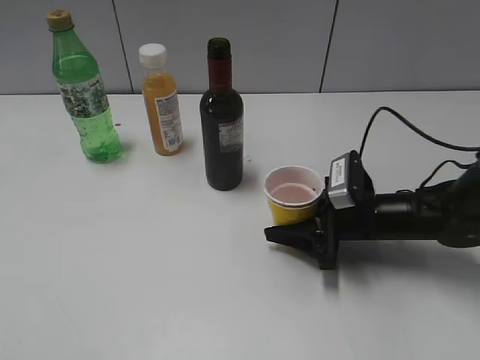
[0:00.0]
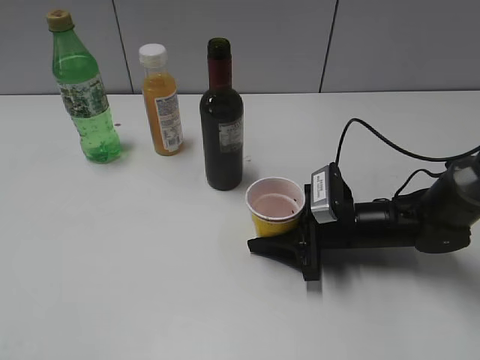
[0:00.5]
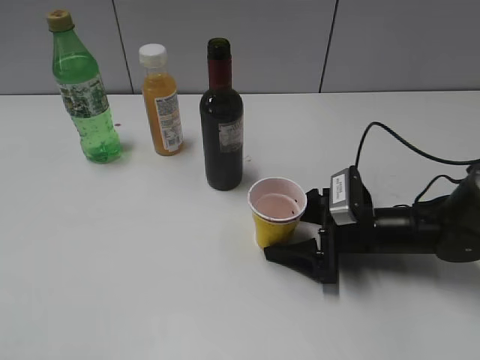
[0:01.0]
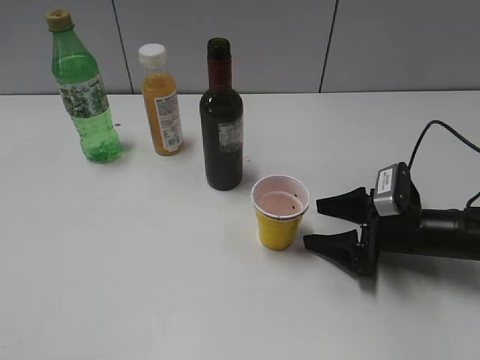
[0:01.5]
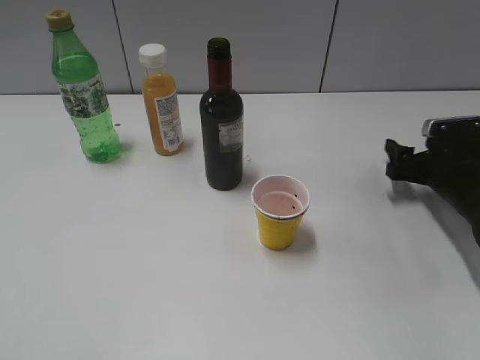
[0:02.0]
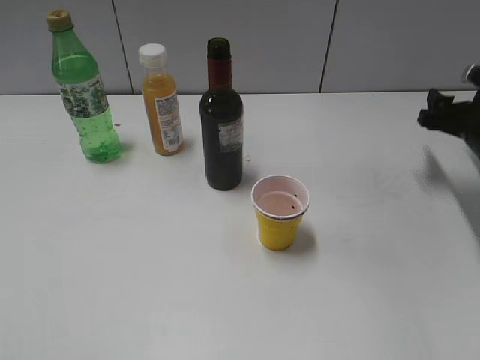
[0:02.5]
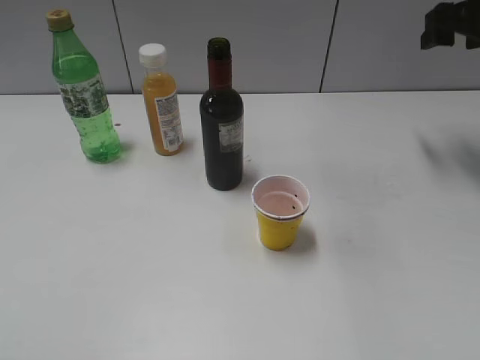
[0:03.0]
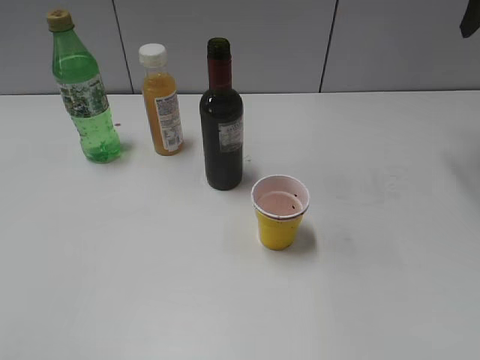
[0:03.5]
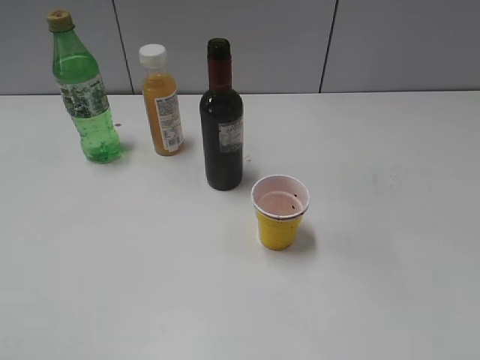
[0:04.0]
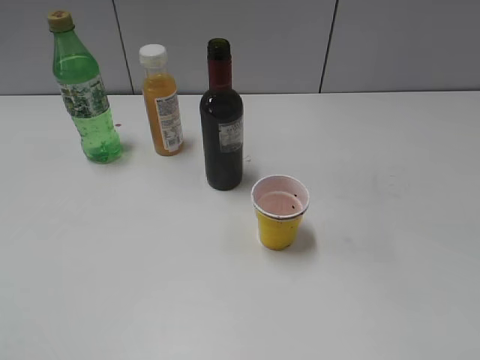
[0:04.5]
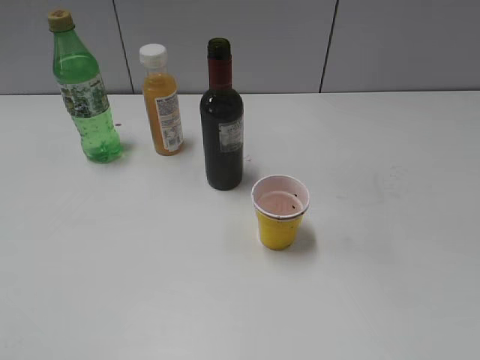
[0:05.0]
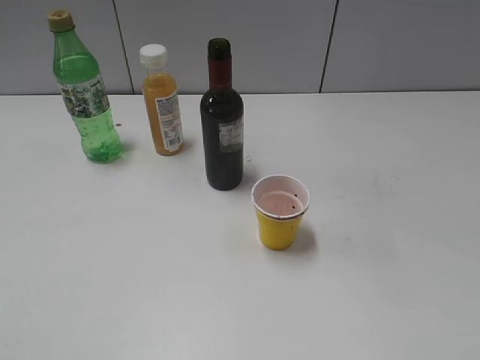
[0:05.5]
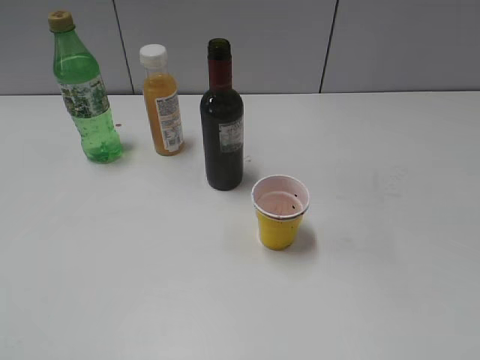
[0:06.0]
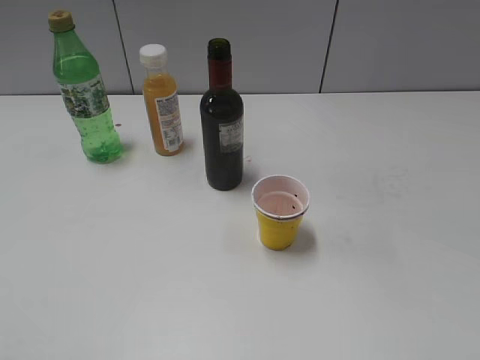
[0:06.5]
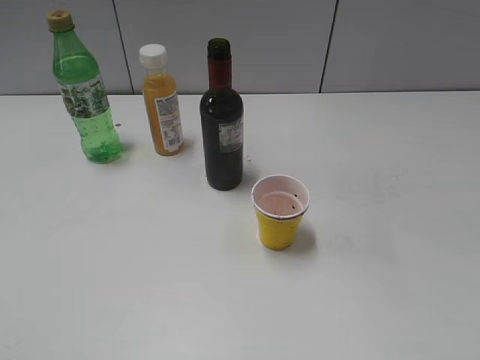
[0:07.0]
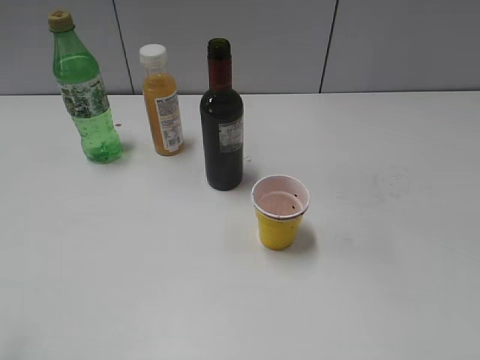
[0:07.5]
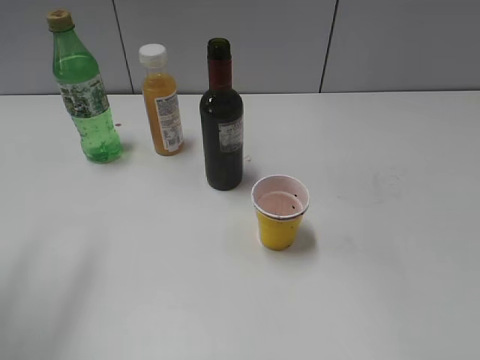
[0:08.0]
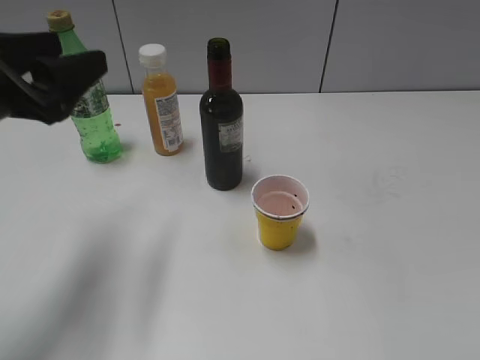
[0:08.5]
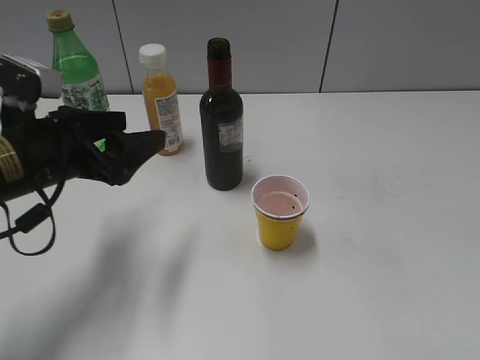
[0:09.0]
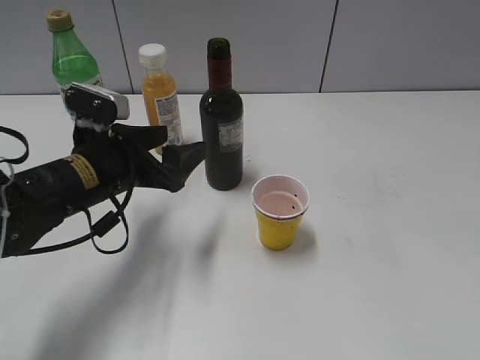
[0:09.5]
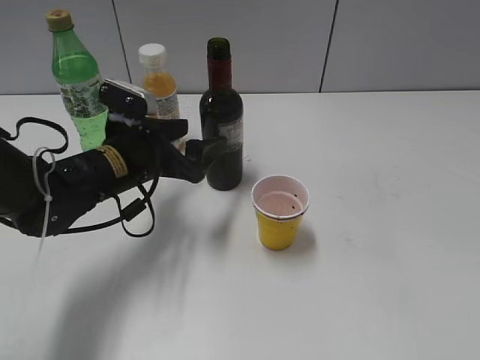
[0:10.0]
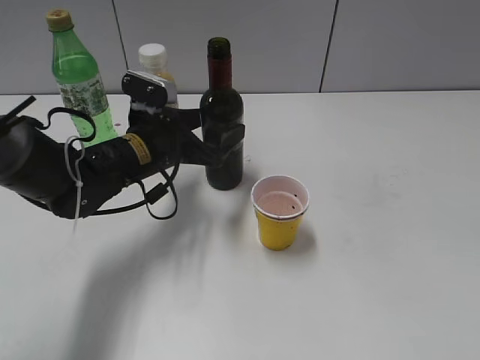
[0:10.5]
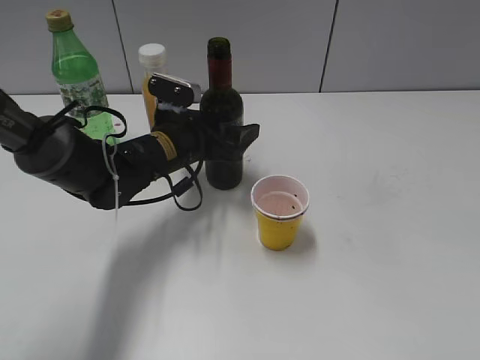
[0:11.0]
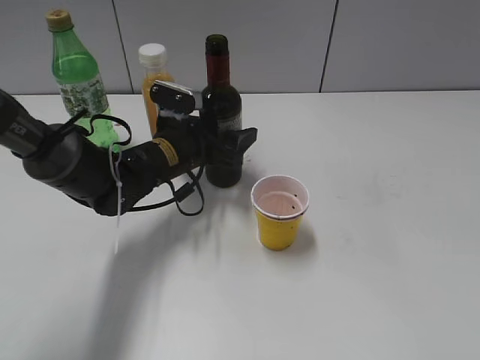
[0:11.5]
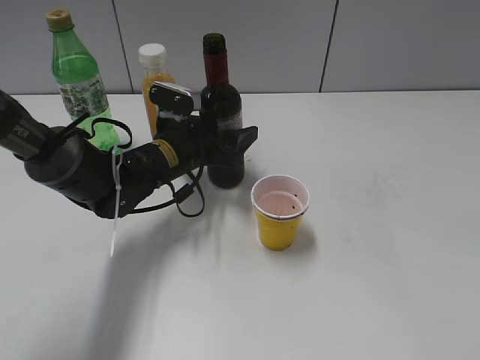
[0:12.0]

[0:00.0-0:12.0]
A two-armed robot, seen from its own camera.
Step, 0:00.0 to 0:01.5: Place the yellow paper cup on the table with right gripper.
0:00.0 to 0:02.0: The right gripper goes about 15 cm to the right, and opens.
0:02.0 to 0:04.0: The right gripper moves upward and backward, about 30 cm.
0:06.0 to 0:08.0: The left gripper heads forward, covering about 20 cm.
0:08.0 to 0:10.0: The left gripper shifts approximately 30 cm downward, to the right and forward, and opens up.
0:10.0 to 0:12.0: The left gripper moves forward, roughly 5 cm, and closes its fingers.

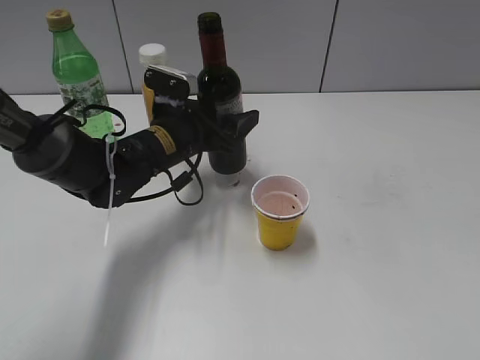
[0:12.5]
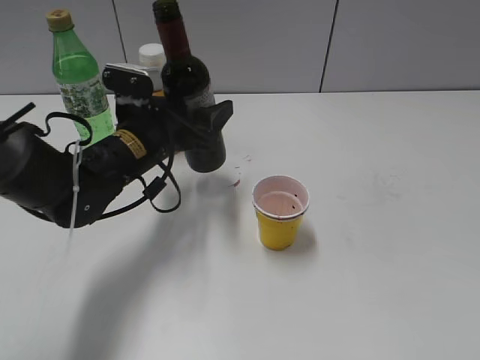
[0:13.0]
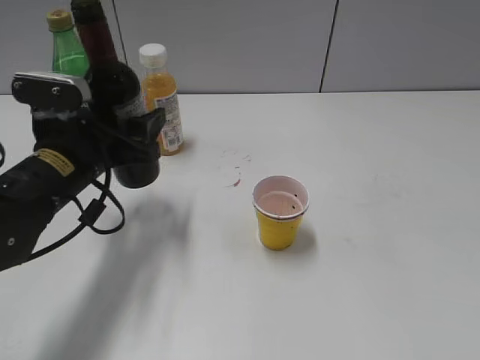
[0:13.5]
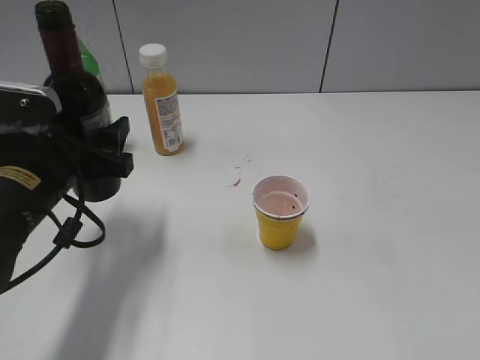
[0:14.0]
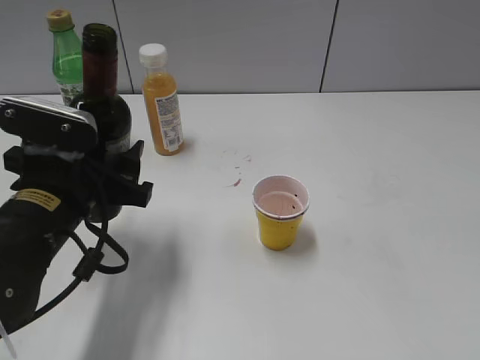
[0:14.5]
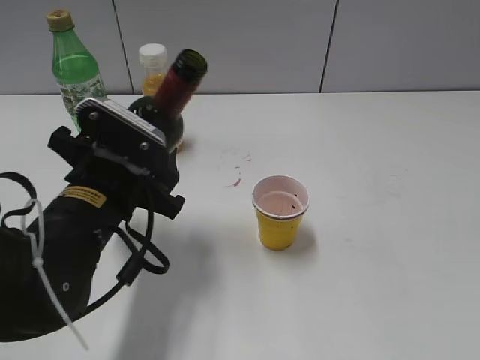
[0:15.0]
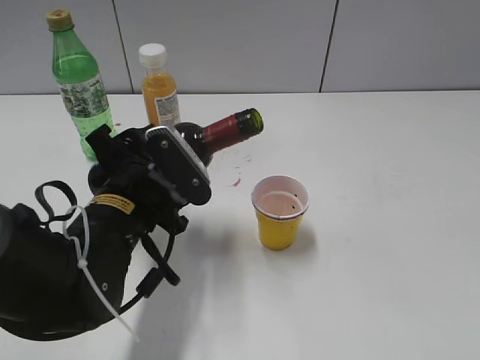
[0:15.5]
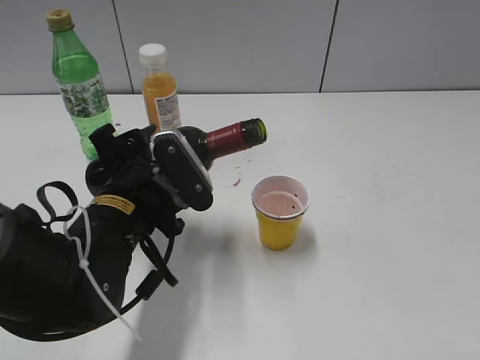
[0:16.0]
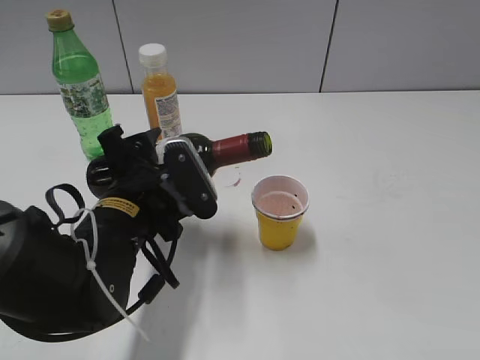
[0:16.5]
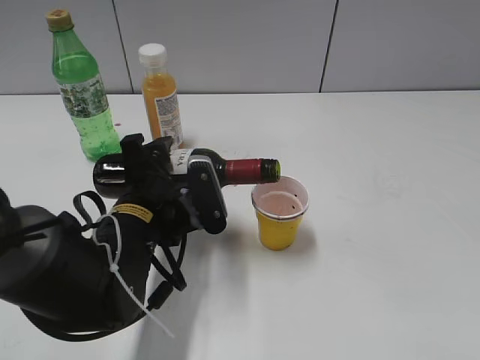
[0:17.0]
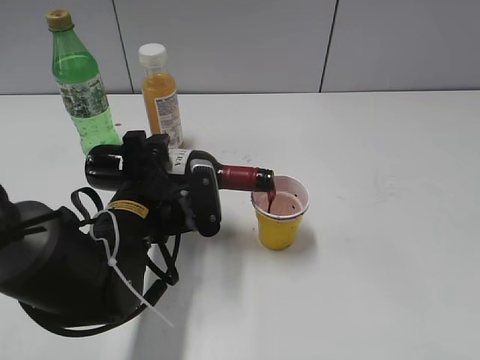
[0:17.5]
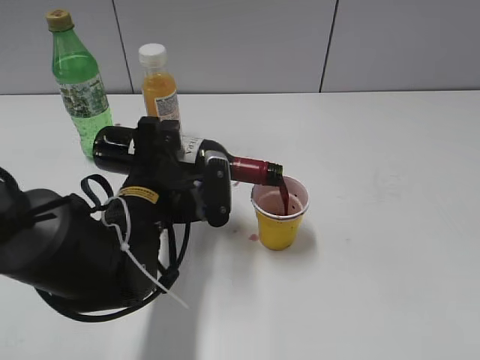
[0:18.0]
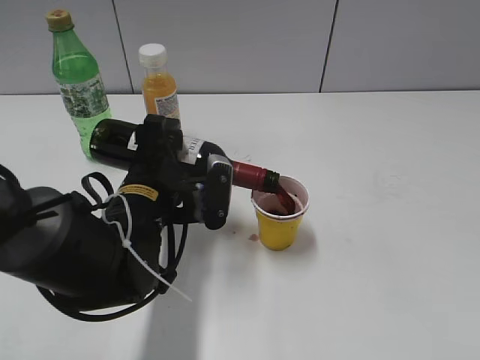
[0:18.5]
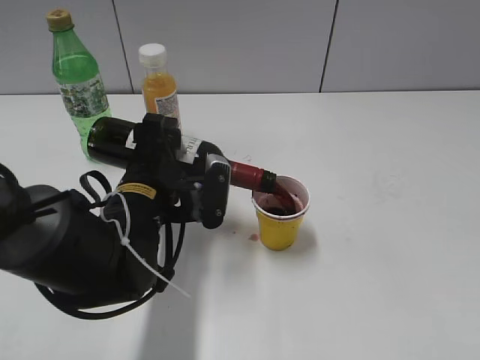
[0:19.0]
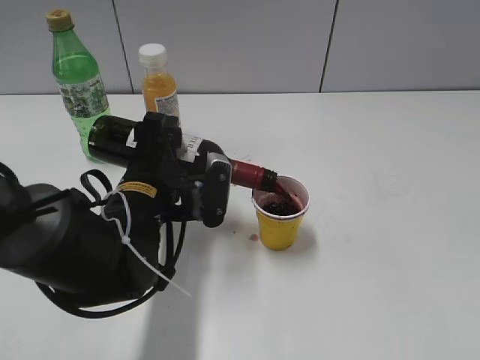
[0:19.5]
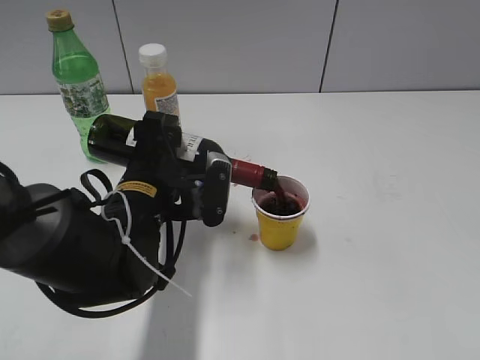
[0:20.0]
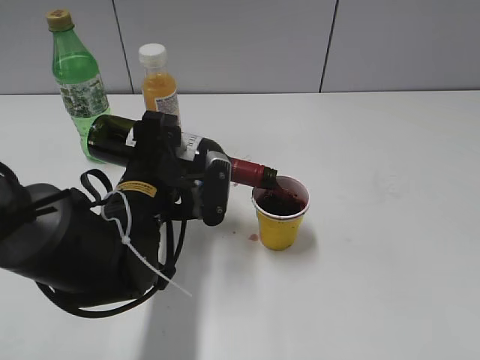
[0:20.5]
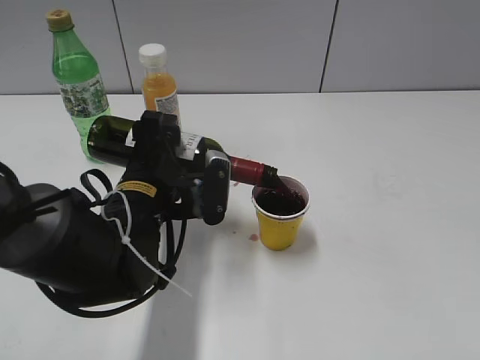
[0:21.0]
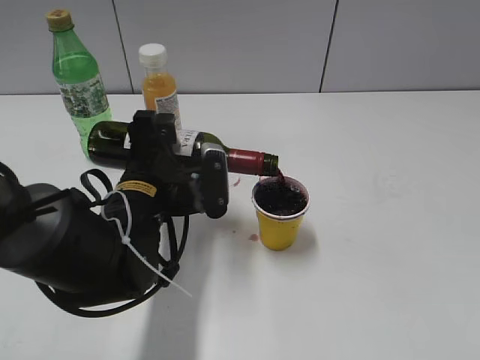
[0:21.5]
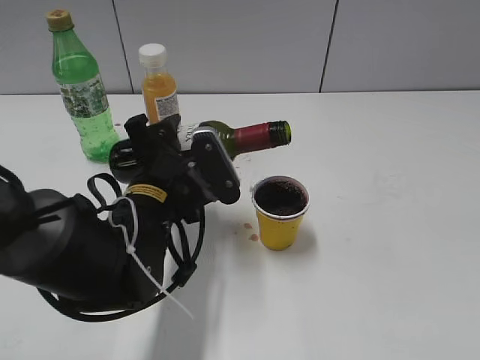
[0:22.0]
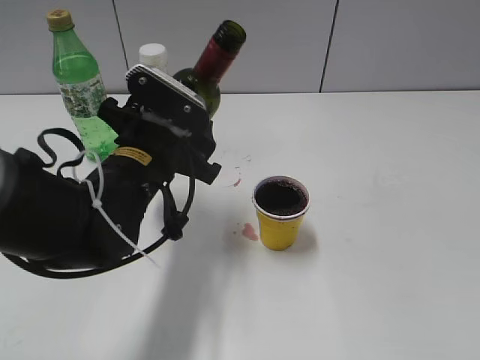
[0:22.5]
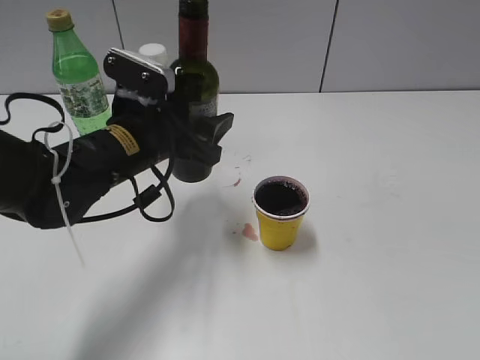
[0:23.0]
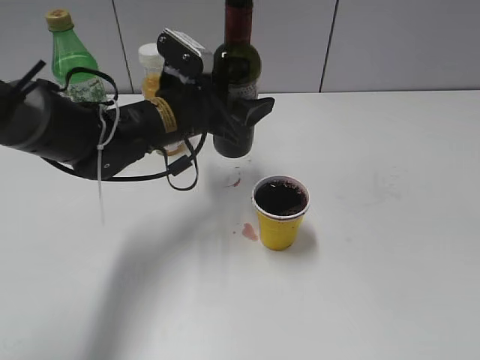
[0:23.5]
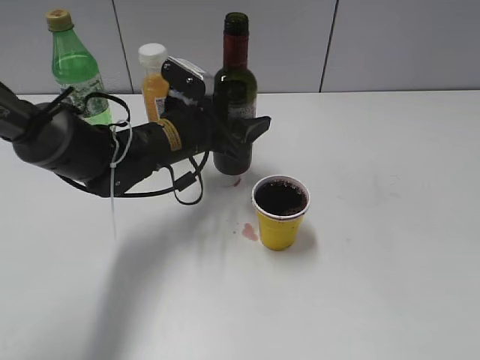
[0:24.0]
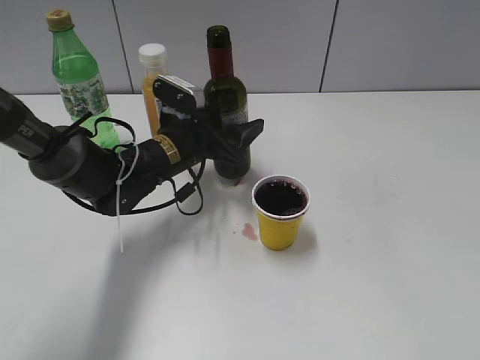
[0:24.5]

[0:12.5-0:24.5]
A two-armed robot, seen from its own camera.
Step, 0:12.5 to 0:22.0: Pour the red wine from bottle to cup with left gripper.
0:12.5 to 0:14.5: The left gripper shifts roughly 20 cm backward and to the left.
0:14.5 to 0:16.5: The left gripper travels to the right by roughly 5 cm.
0:18.5 to 0:20.5: Both grippers stay about where they are.
0:22.5 to 0:24.5: The left gripper is displaced forward and downward by approximately 10 cm.

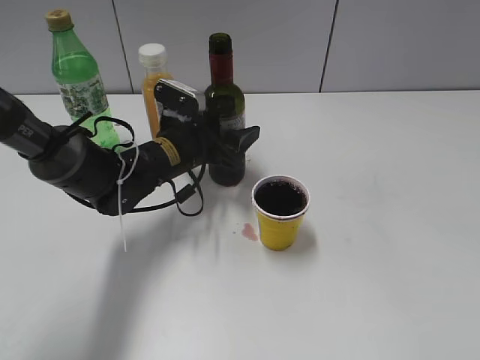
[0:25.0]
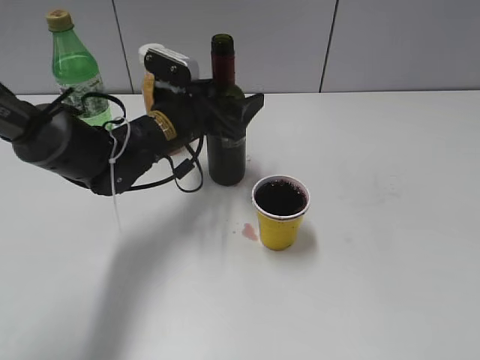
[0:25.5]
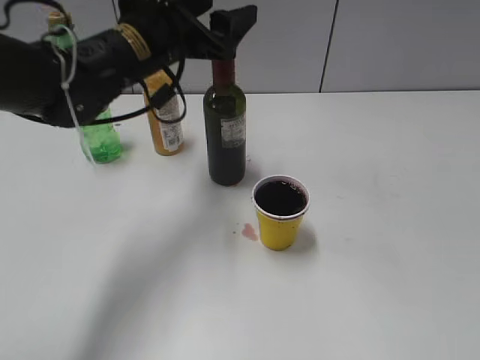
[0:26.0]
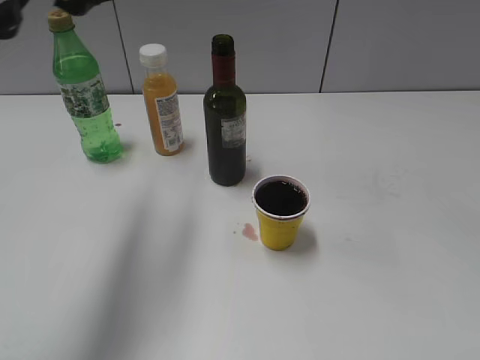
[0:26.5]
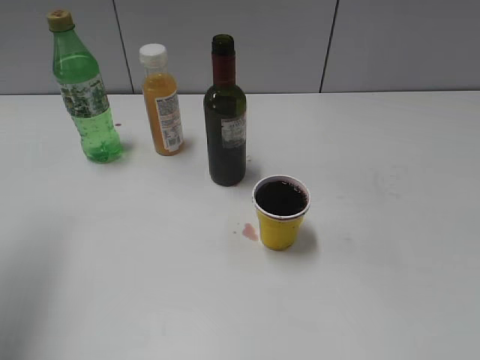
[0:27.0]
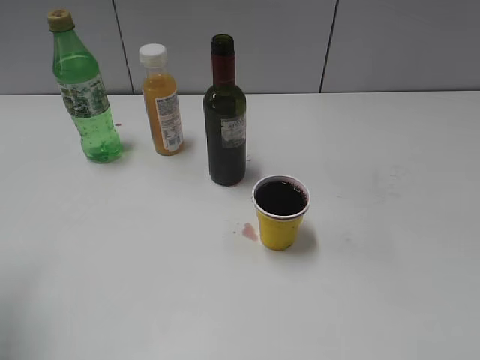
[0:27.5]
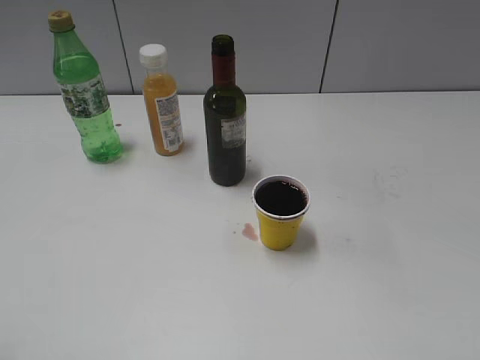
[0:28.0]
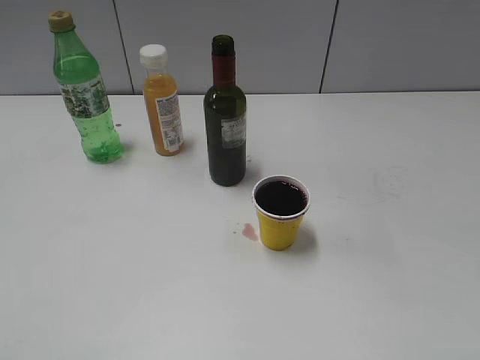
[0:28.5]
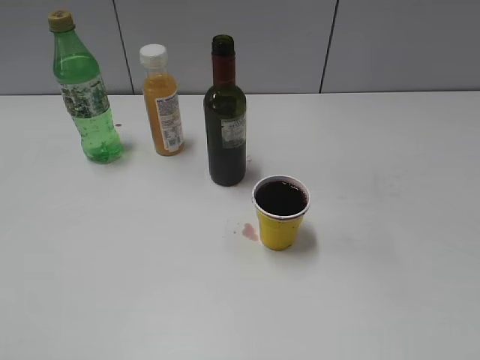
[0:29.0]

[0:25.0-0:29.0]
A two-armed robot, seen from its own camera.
0:25.0 to 0:27.0: The left gripper is displaced upward, to the left and backward by roughly 35 cm, and opens, then closes once more.
0:27.0 to 0:29.0: The left gripper shifts some 25 cm backward.
